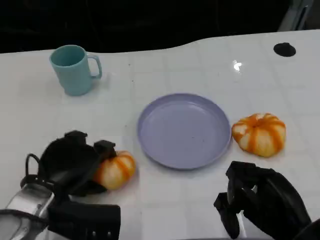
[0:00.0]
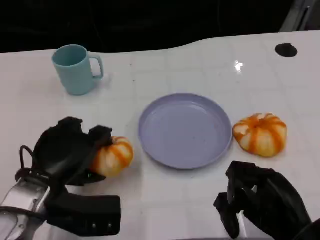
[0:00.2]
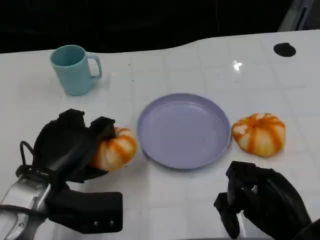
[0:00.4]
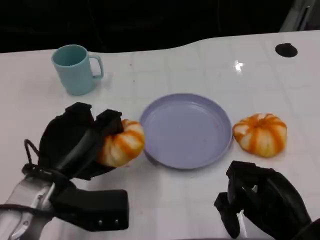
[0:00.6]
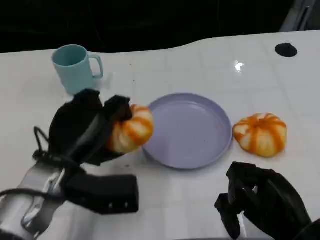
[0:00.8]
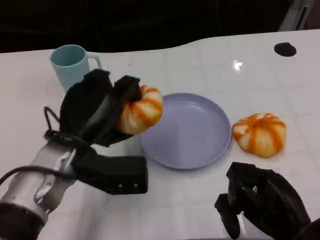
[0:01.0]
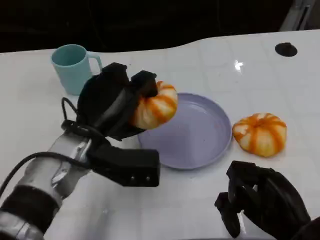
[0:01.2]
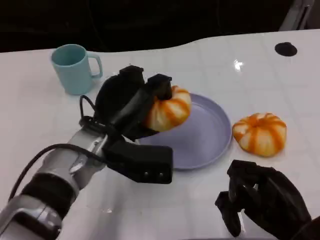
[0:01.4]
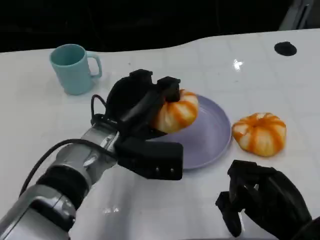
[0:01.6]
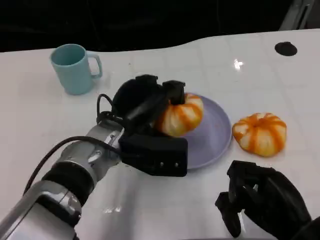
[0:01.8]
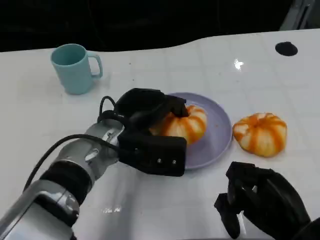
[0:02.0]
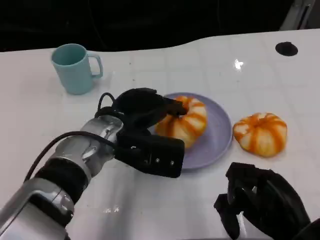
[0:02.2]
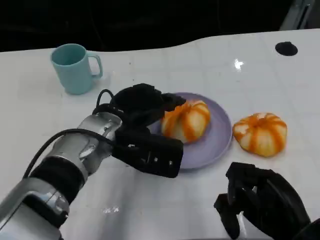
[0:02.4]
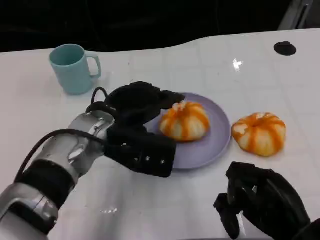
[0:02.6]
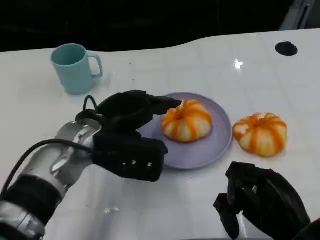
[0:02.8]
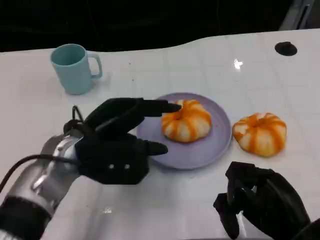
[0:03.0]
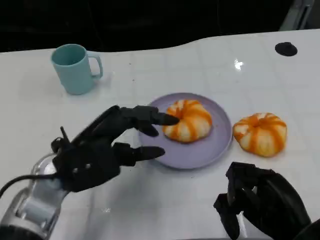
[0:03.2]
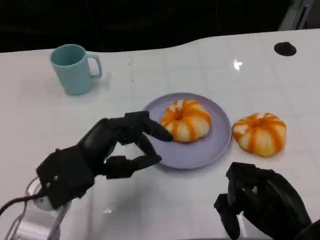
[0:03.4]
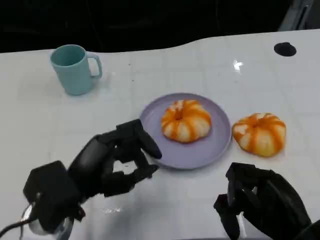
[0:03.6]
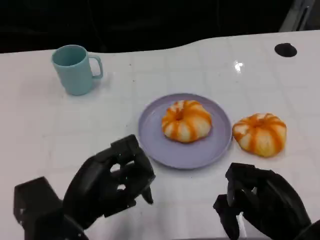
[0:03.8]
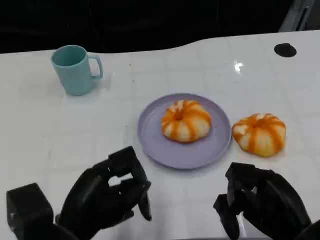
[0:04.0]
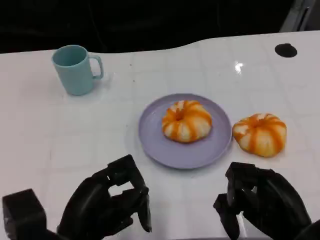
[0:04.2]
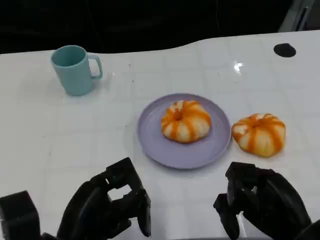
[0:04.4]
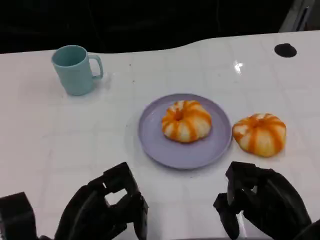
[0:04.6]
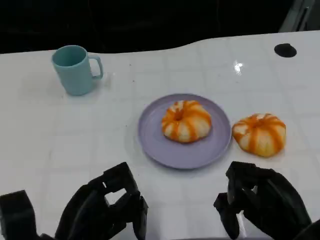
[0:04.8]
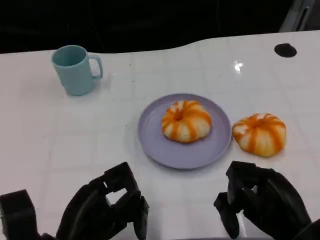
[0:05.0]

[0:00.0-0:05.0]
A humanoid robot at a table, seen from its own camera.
Task of the whole recording: Grasp the bread from the table and place it into the plate.
0:00.0 to 0:01.6: The left hand shifts approximately 15 cm to the right and forward.
0:01.6 to 0:03.4: The left hand heads to the left and backward, covering some 10 cm.
0:03.4 to 0:05.0: The left hand travels backward by about 5 cm.

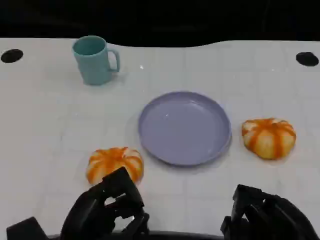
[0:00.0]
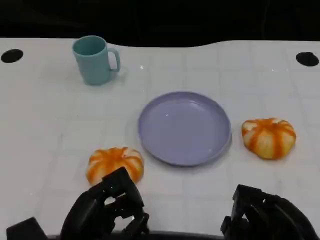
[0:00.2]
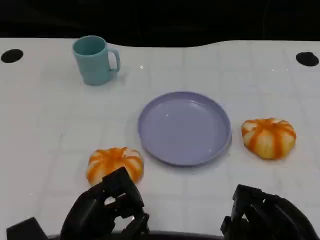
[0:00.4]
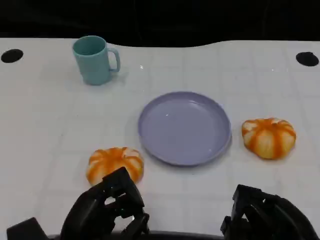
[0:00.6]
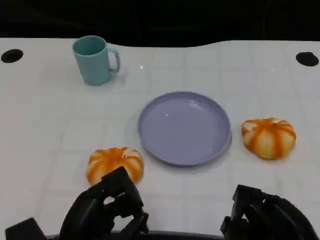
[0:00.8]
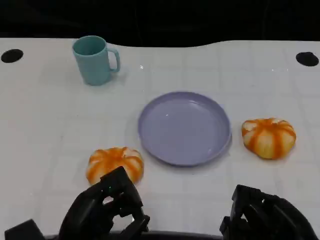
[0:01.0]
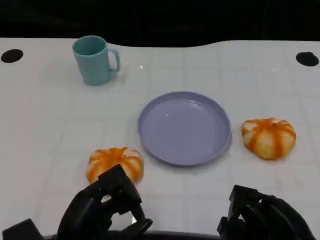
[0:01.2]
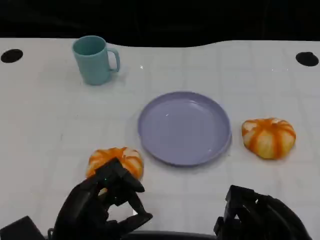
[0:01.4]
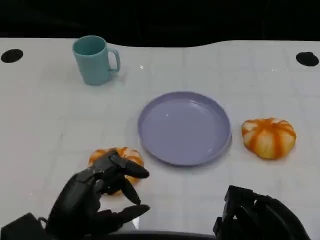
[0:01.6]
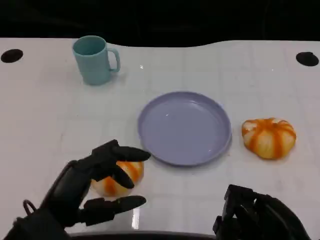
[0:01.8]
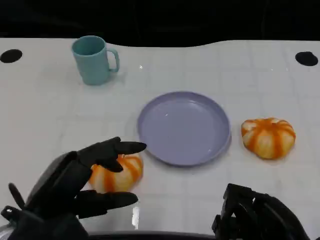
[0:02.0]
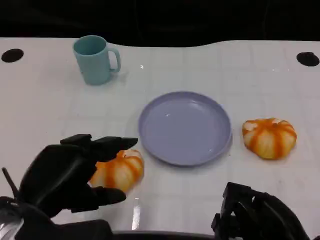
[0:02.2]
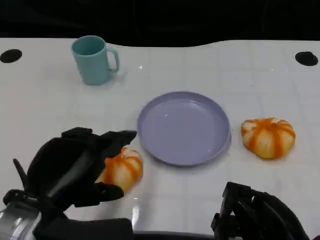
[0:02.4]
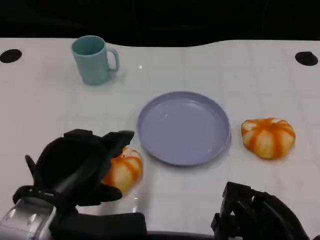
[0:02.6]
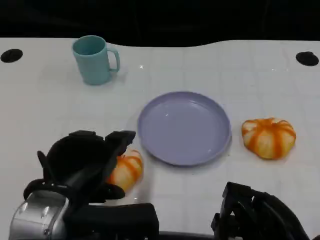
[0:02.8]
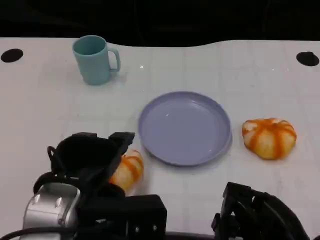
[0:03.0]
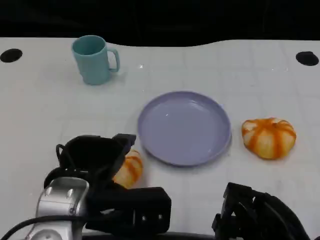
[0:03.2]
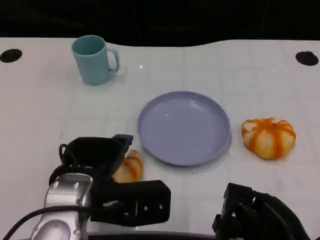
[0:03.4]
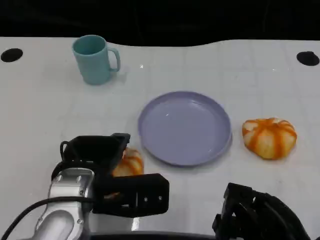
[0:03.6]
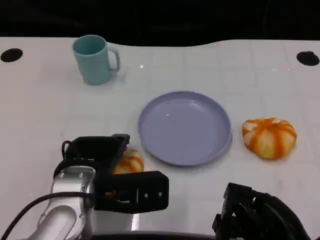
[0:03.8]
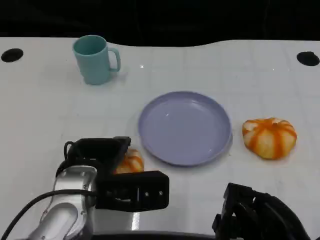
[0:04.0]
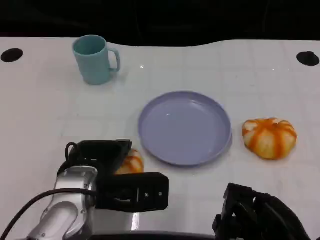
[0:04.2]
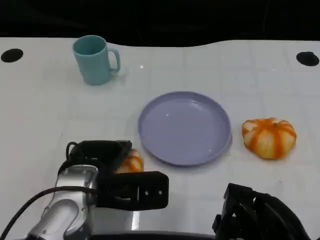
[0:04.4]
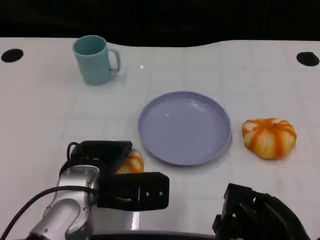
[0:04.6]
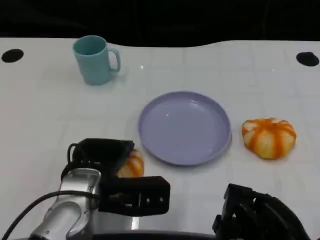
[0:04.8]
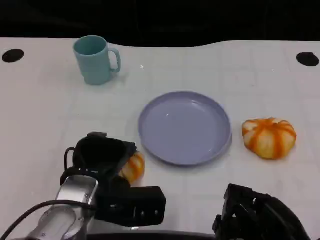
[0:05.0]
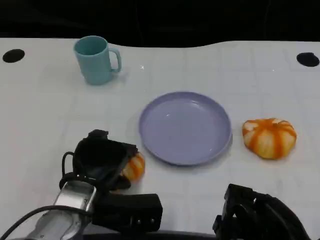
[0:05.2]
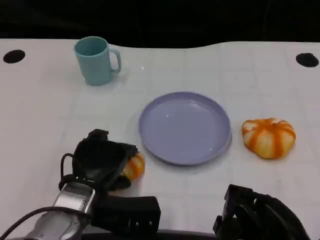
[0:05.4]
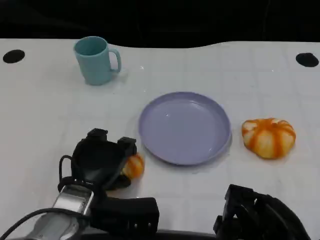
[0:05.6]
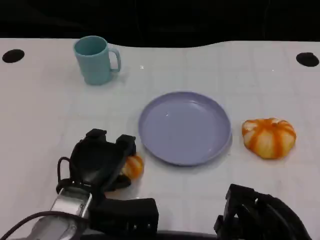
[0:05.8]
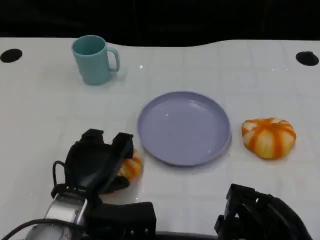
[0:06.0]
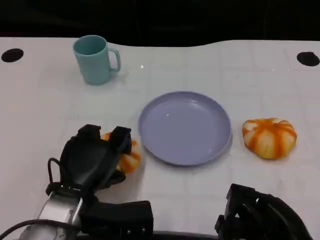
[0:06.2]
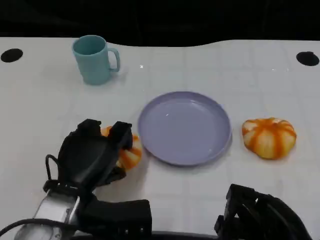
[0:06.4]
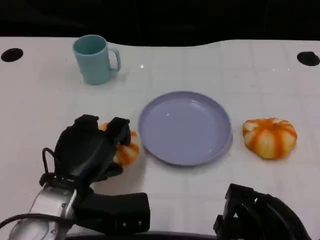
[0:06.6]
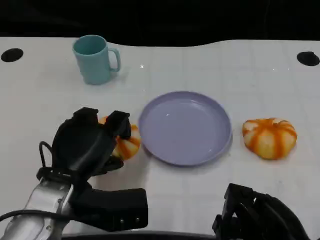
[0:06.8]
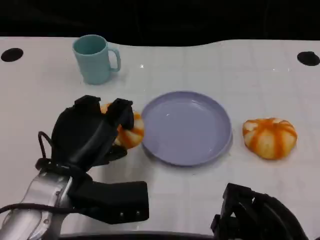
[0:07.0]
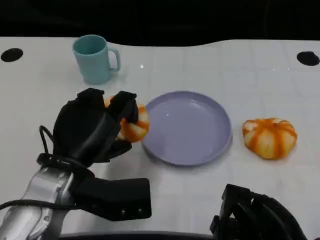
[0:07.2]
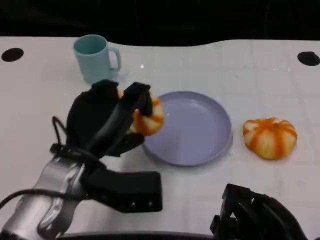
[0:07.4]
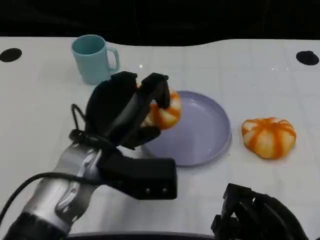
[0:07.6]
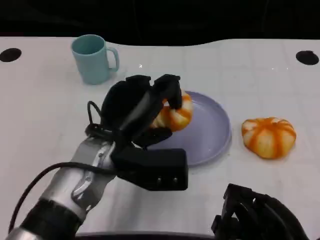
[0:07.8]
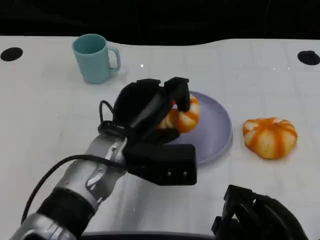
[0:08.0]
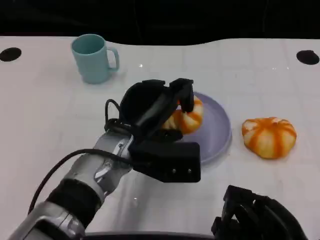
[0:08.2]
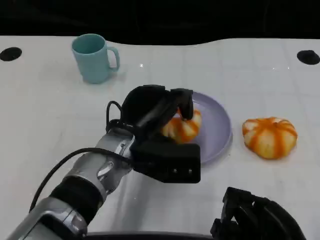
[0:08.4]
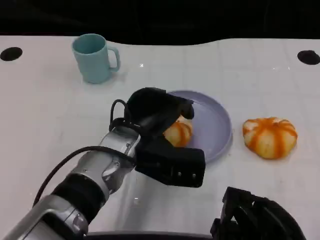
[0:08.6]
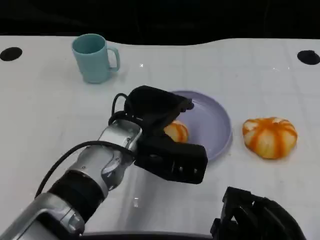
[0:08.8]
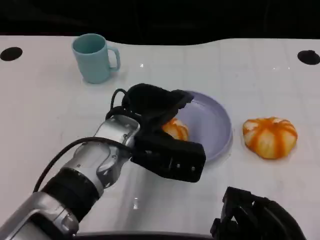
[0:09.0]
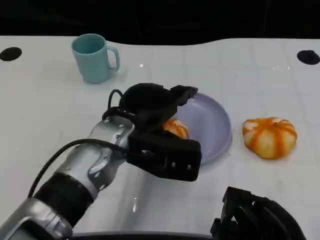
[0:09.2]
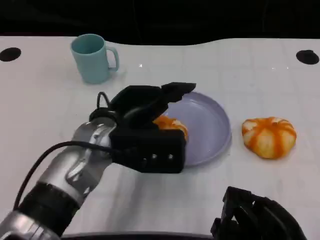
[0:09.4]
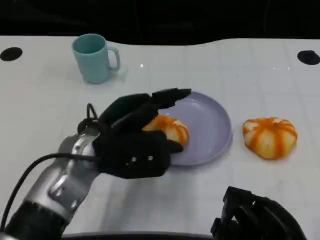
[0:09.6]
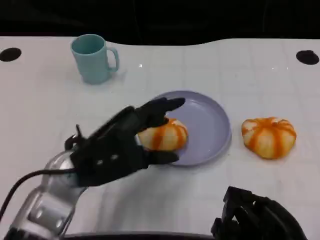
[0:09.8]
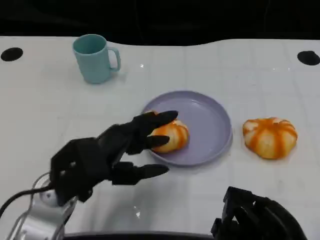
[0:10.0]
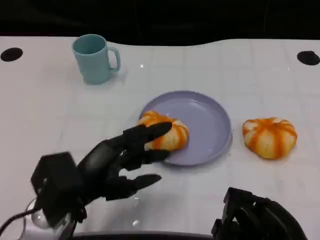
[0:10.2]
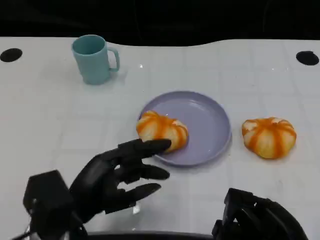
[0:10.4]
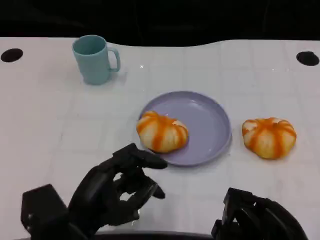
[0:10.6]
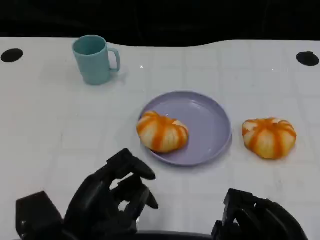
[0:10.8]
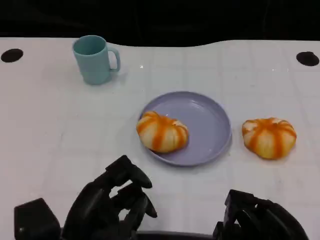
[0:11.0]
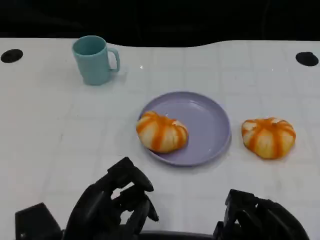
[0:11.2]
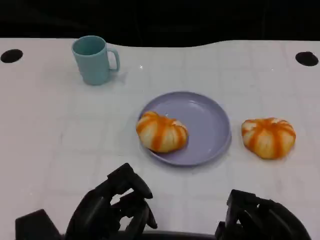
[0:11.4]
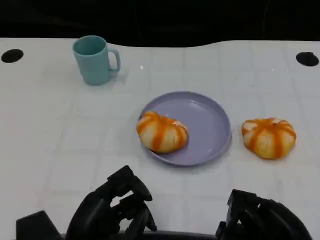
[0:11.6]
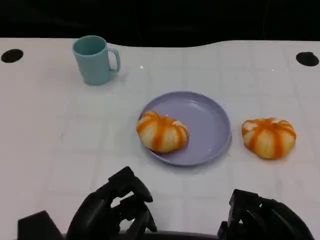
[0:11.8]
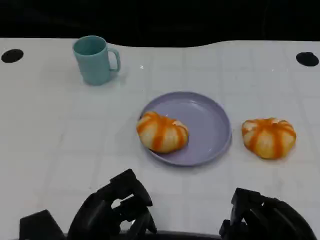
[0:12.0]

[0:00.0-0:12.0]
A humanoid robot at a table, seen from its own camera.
Task of the whole recording: Grasp the bread from the table and place it into the plate.
0:00.0 to 0:01.6: The hands move only a little.
0:01.6 to 0:03.0: The left hand shifts approximately 5 cm upward.
0:03.0 to 0:04.4: The left hand goes about 5 cm forward.
0:06.0 to 0:07.6: The left hand moves upward, some 10 cm.
0:07.6 to 0:09.0: The left hand ends up roughly 5 cm from where it was.
0:09.0 to 0:10.4: The left hand goes approximately 15 cm backward, to the left and downward.
0:10.4 to 0:12.0: The hands make only small movements.
